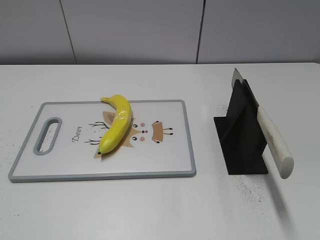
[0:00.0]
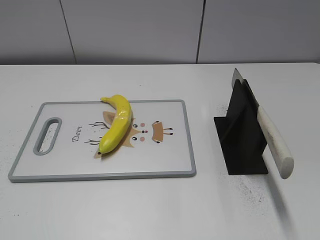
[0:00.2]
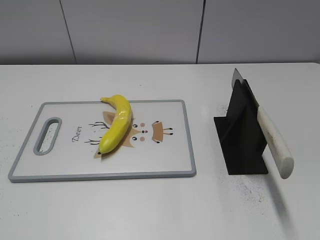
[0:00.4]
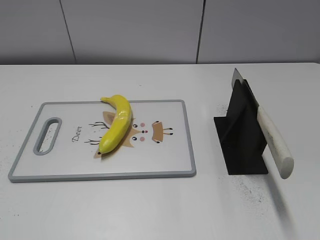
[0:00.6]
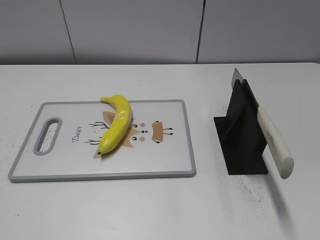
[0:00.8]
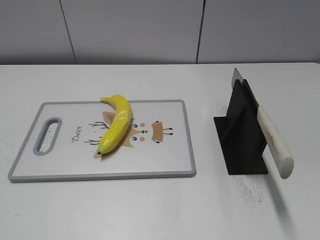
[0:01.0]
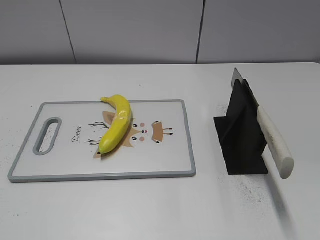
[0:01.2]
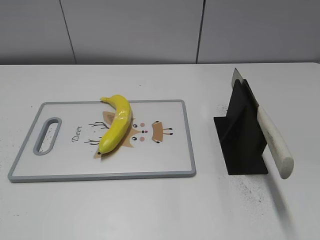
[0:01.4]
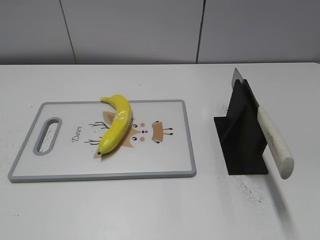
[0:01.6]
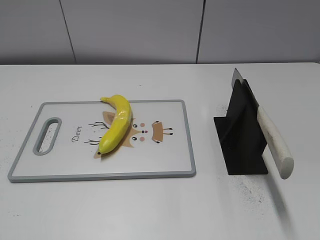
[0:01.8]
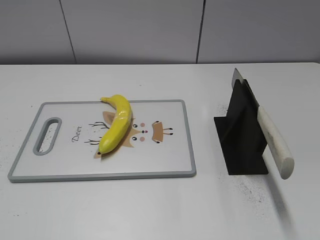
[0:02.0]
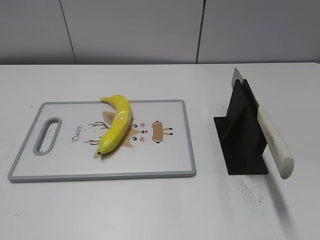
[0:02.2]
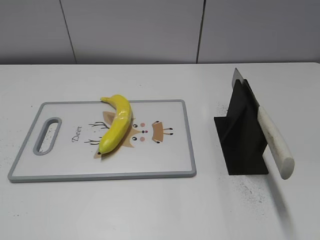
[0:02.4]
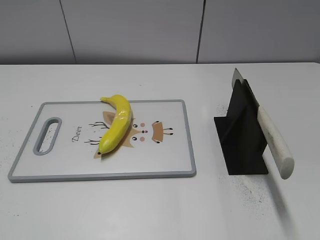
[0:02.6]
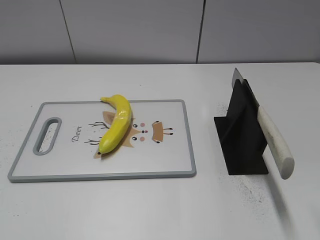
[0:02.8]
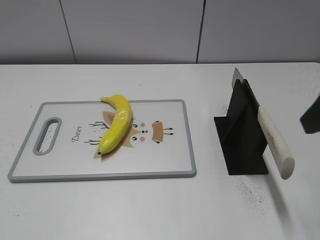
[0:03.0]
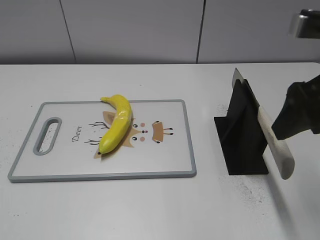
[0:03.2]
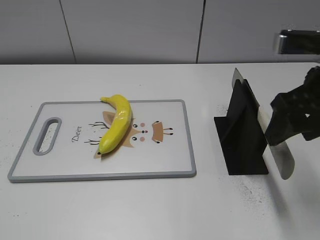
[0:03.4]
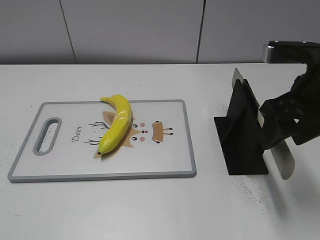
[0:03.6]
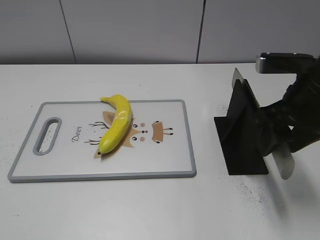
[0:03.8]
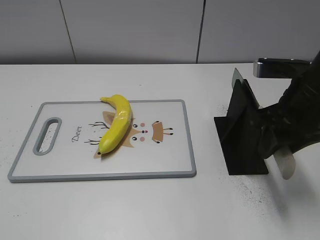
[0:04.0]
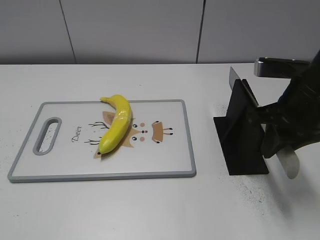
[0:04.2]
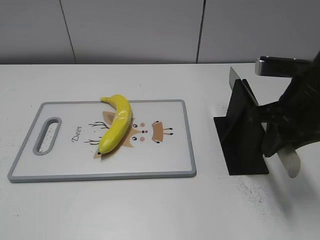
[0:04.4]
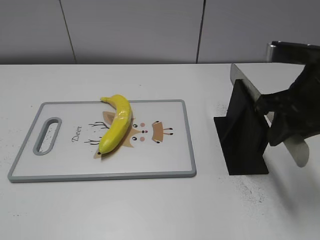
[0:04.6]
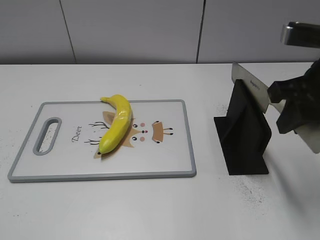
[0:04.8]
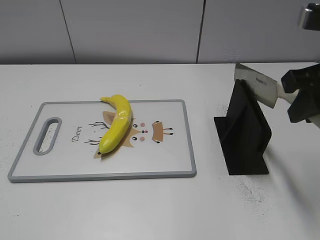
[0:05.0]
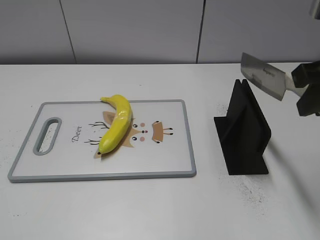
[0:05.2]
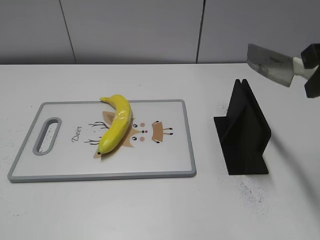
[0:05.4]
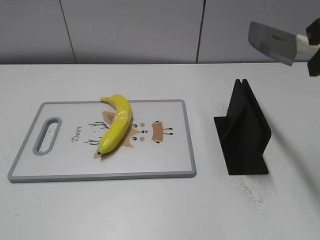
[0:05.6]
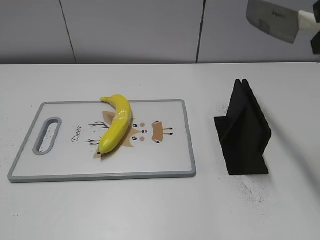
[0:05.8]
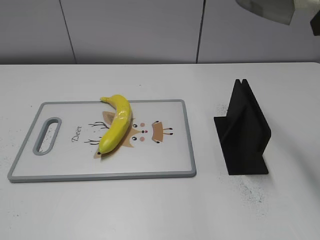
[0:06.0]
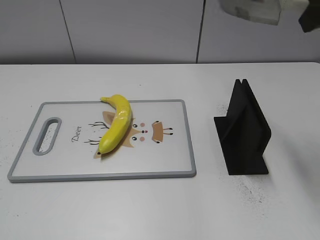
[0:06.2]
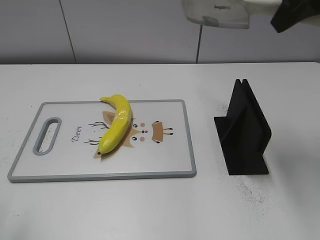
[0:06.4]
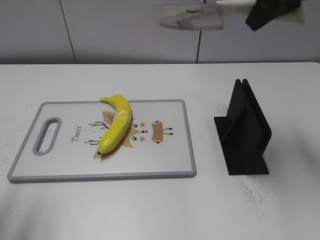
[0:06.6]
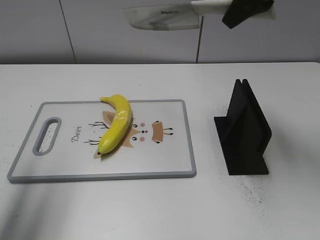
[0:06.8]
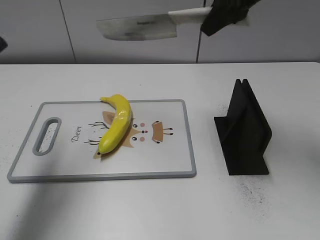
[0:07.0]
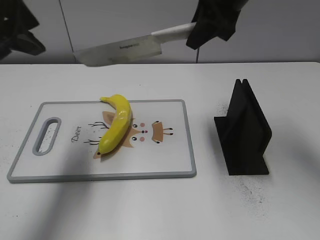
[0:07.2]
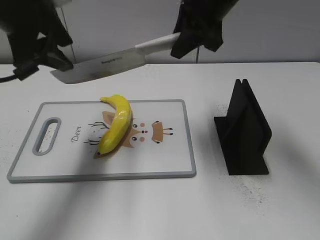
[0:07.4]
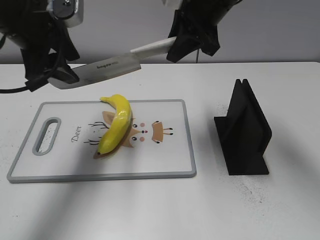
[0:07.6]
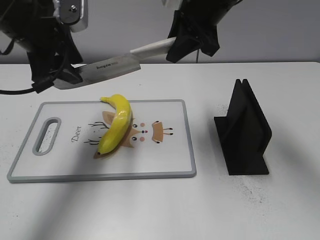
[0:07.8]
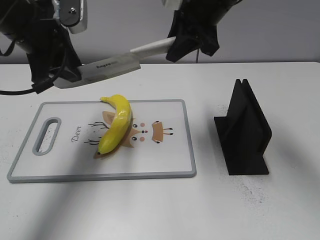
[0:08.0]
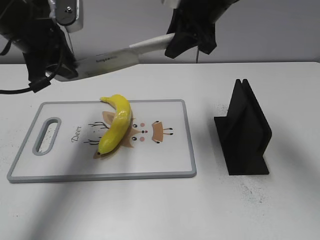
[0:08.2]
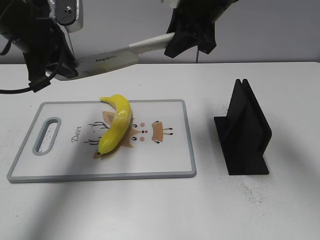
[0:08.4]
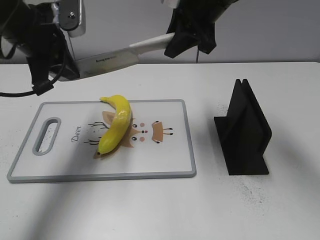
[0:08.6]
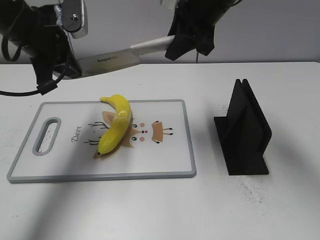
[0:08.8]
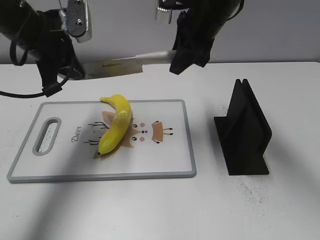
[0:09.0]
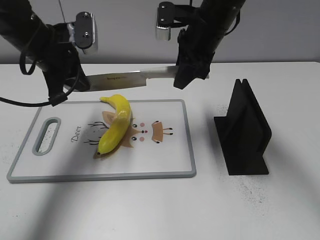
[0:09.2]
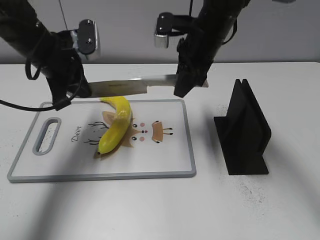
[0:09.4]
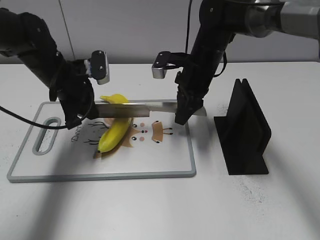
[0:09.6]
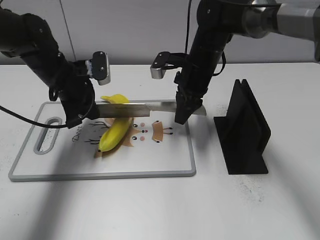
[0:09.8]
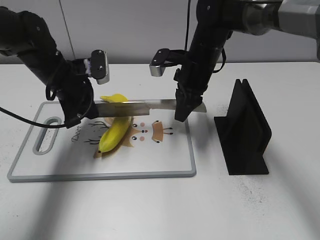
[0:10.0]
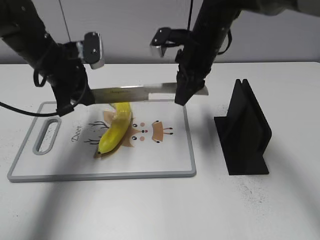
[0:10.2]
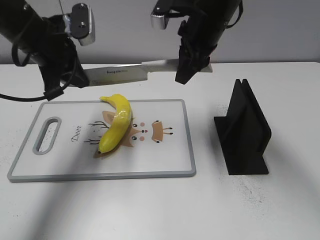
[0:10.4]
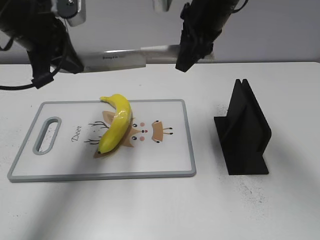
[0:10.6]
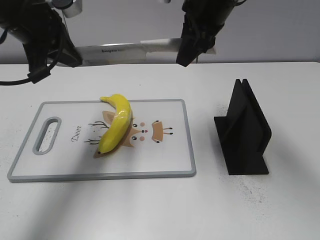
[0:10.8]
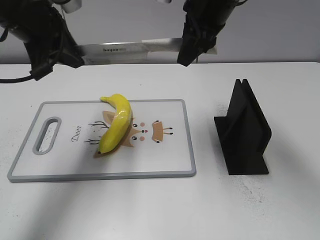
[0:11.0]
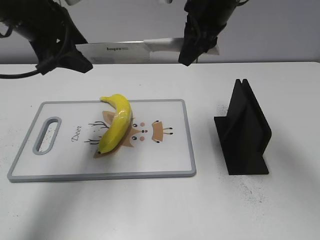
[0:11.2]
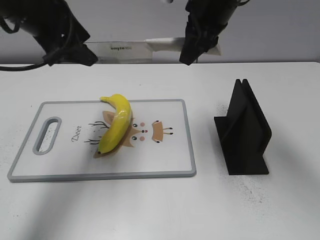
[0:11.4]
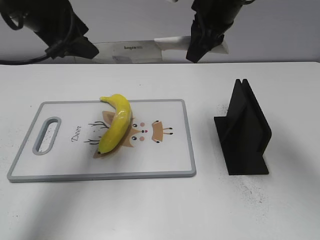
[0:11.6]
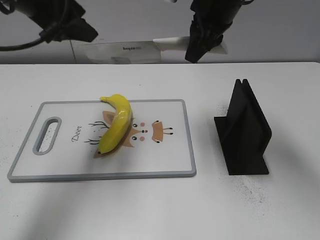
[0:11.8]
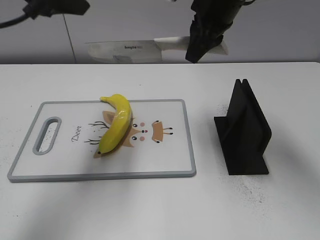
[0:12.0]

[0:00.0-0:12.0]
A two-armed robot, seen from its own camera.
Task of the whole recording: cut plastic banana.
Step, 0:00.0 to 0:05.4: Grab the knife handle with your right hand.
Step, 0:05.6 to 0:10.8: Lift the knife with your right hand.
0:01.6 to 0:03.0: The right gripper goes roughly 20 cm forward.
0:03.0 to 0:04.4: The right gripper is displaced downward and forward by some 10 cm, and closes.
0:04.4 to 0:06.0: The right gripper heads upward, covering roughly 15 cm.
0:06.0 to 0:07.6: The right gripper travels forward, to the left and downward by roughly 25 cm, while the left gripper is displaced forward by about 30 cm.
0:07.6 to 0:09.0: The left gripper changes place by roughly 5 cm, and closes up.
0:09.0 to 0:10.4: The right gripper moves about 10 cm downward and comes back; the left gripper travels downward and back again, some 10 cm each way.
0:10.4 to 0:12.0: The left gripper is displaced upward by approximately 10 cm, and opens its fingers.

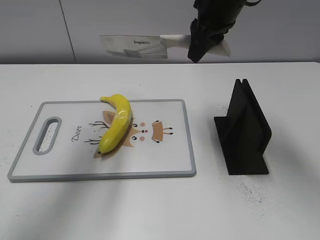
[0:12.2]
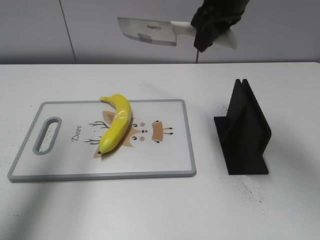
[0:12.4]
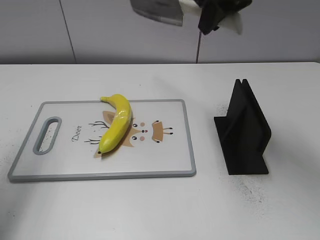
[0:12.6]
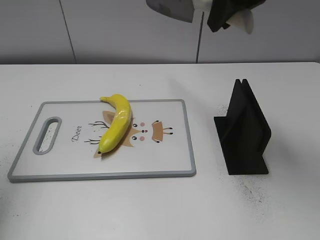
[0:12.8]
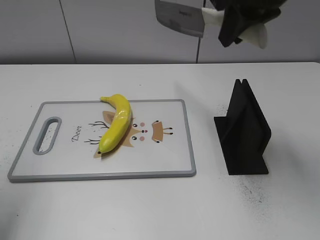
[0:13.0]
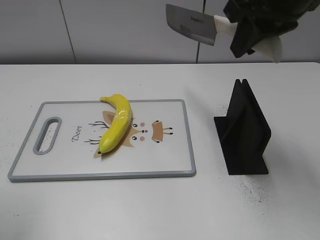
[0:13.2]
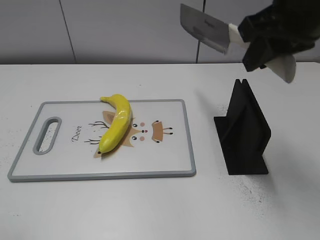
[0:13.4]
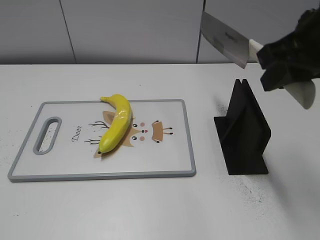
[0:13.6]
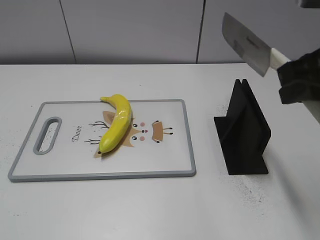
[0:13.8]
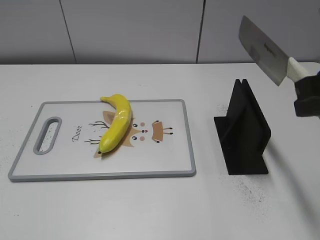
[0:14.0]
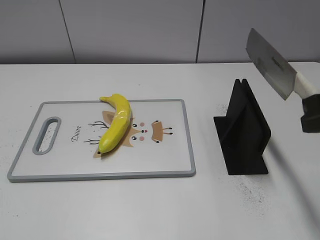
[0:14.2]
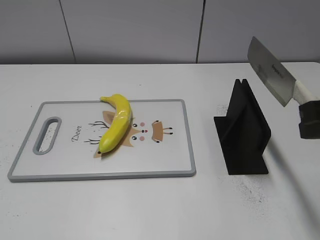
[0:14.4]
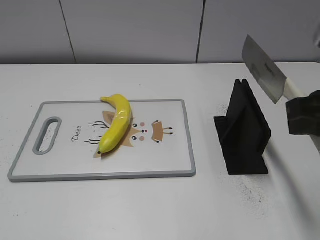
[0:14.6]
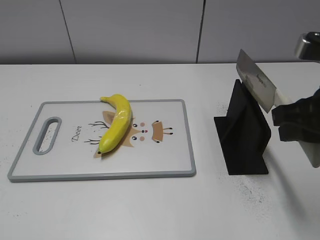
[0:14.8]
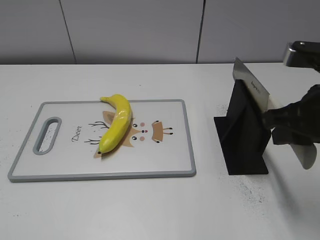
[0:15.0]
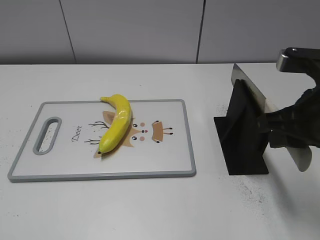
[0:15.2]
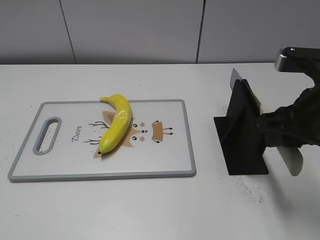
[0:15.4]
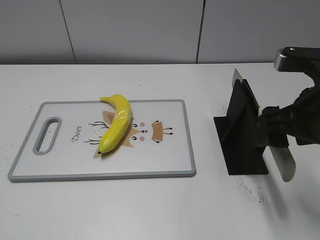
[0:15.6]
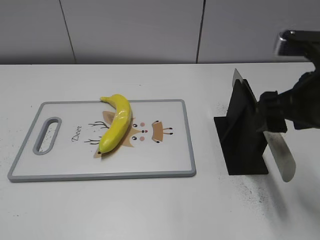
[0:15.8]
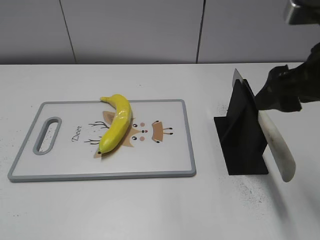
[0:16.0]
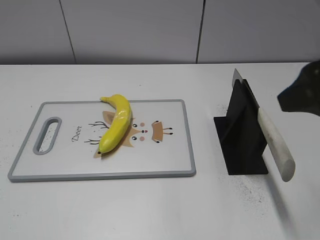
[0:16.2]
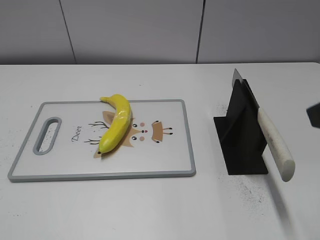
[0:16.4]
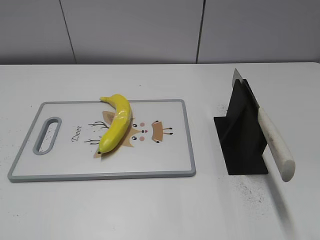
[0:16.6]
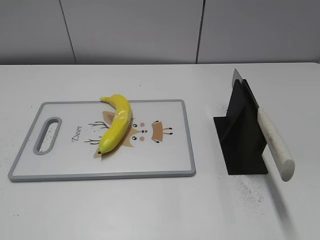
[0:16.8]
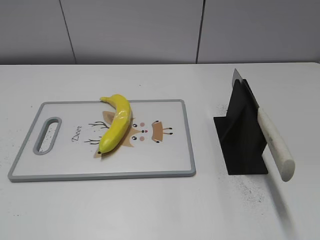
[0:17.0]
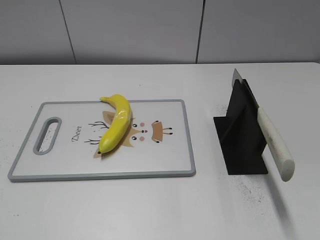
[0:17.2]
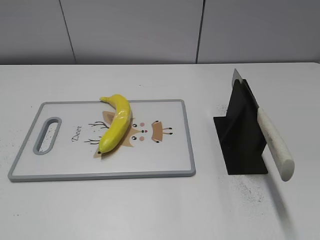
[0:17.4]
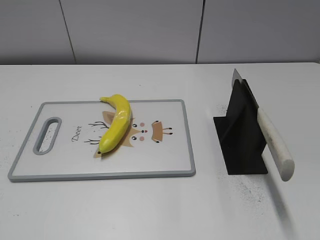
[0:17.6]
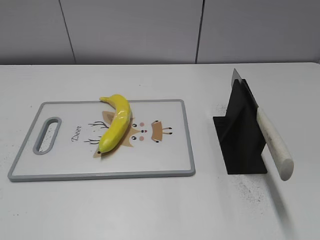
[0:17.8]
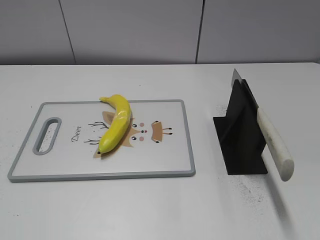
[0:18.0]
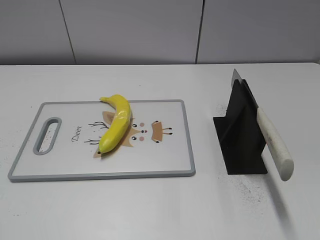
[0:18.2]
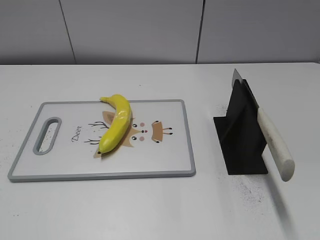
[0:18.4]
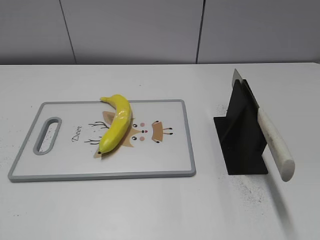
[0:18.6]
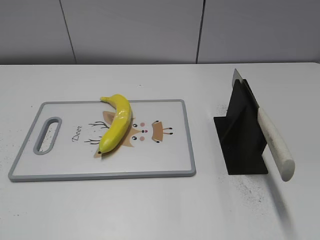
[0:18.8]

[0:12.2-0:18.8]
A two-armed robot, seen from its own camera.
Task of the whole recording: cut plastic banana.
Step, 0:12.4 to 0:13.6: Lift the knife with your right hand.
Step, 0:13.8 to 0:18.8: Place the knife on the storage rack with your right hand.
0:12.2 to 0:13.8: The left gripper is displaced backward by some 30 cm. Meanwhile the right gripper moves backward and to the right, approximately 20 cm.
0:13.8 to 0:15.4: The right gripper goes approximately 10 cm downward.
0:15.4 to 0:17.2: The right gripper goes roughly 20 cm backward and to the right, and opens.
